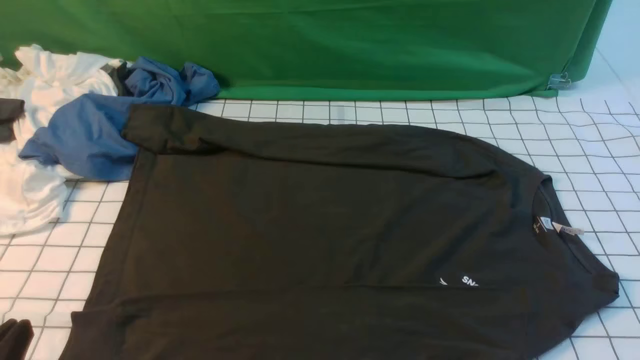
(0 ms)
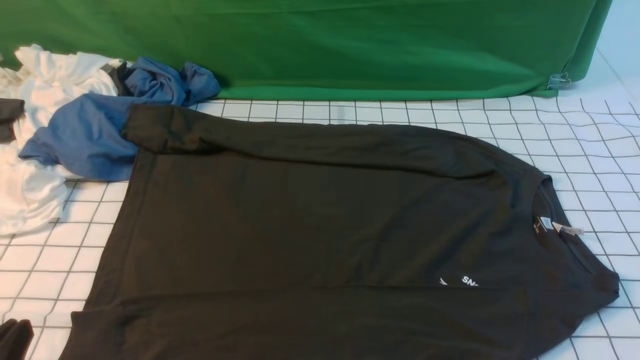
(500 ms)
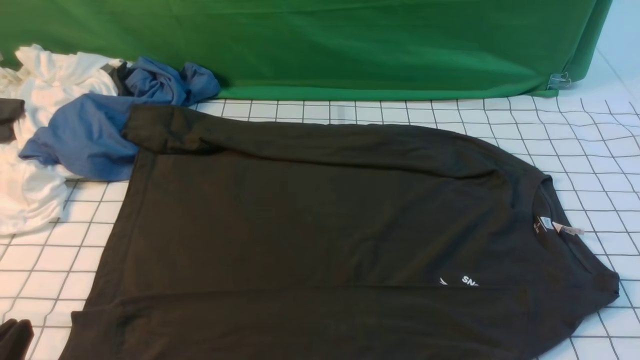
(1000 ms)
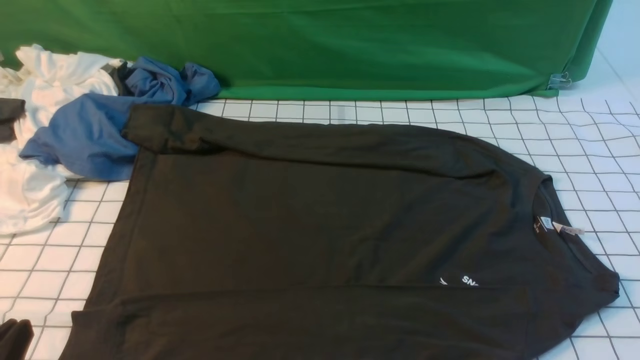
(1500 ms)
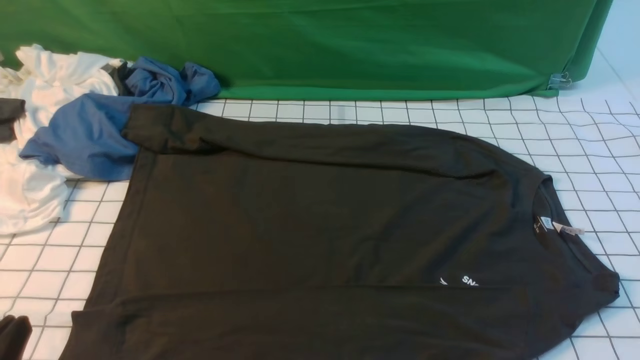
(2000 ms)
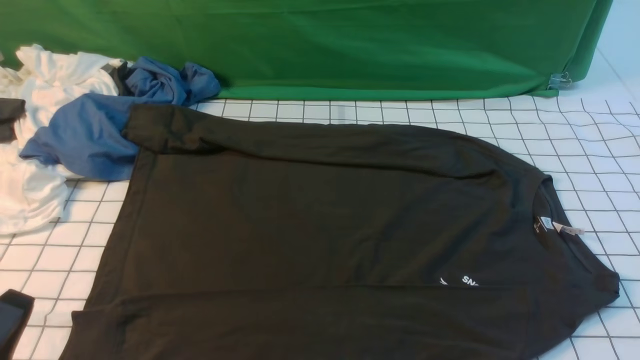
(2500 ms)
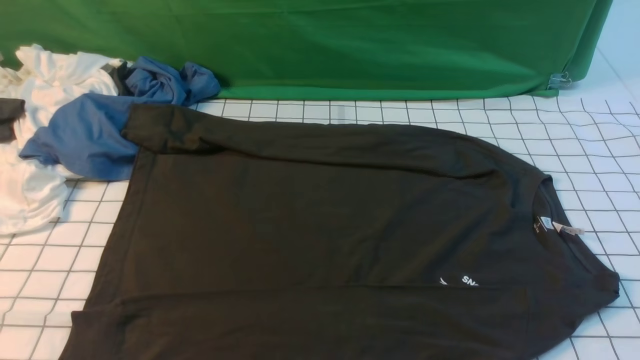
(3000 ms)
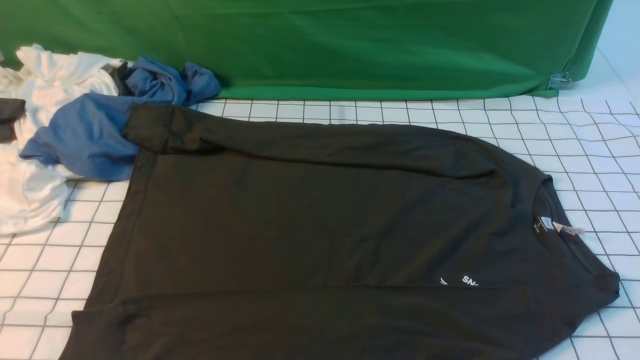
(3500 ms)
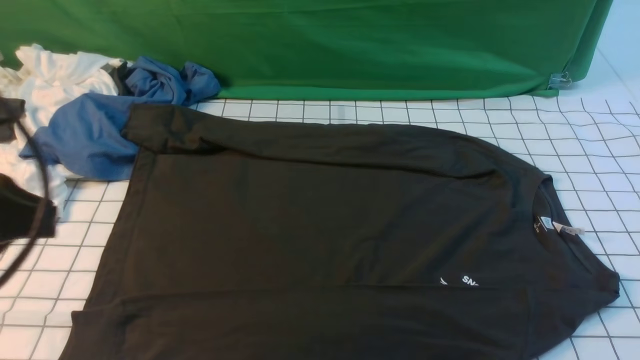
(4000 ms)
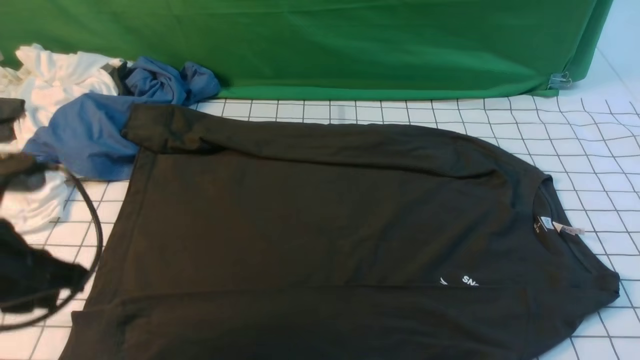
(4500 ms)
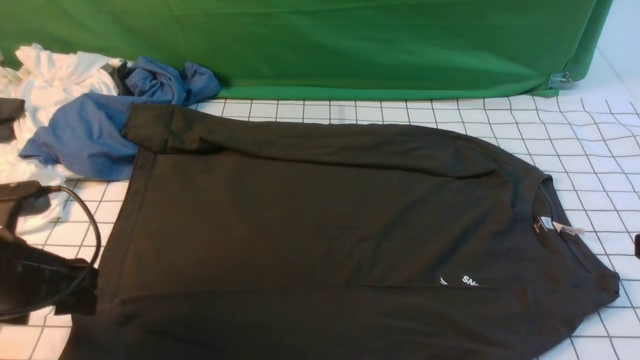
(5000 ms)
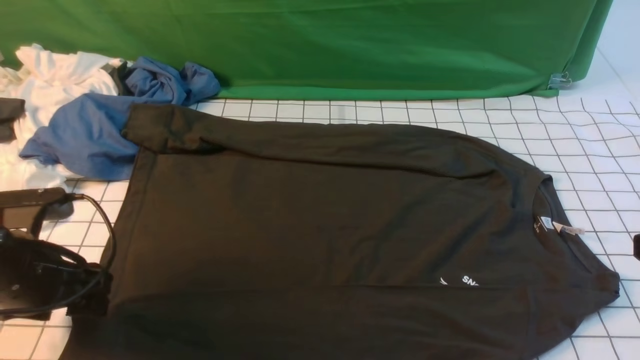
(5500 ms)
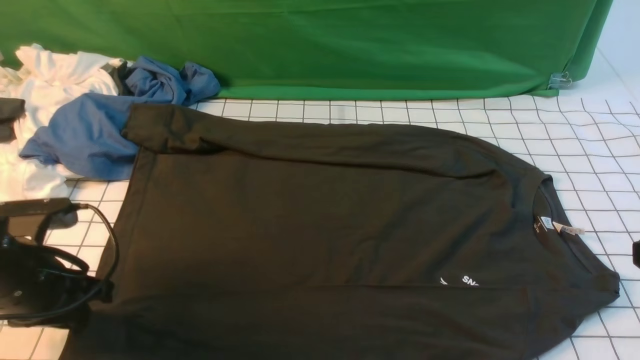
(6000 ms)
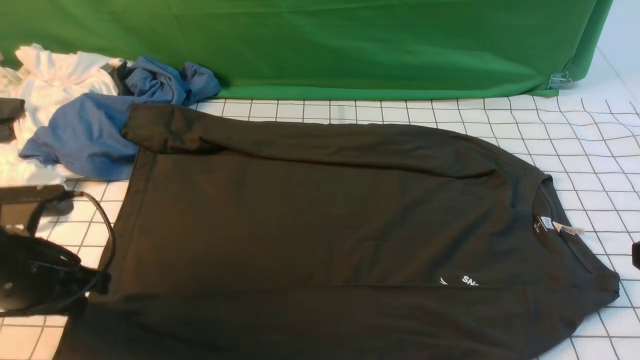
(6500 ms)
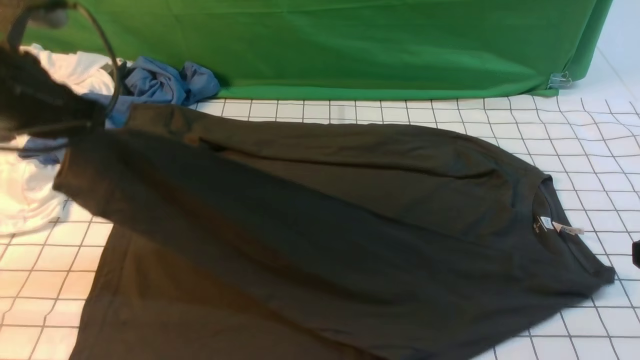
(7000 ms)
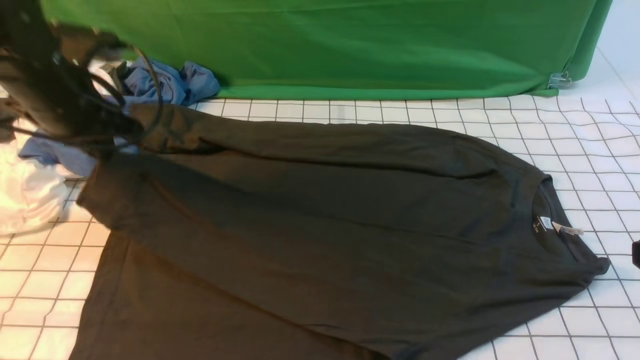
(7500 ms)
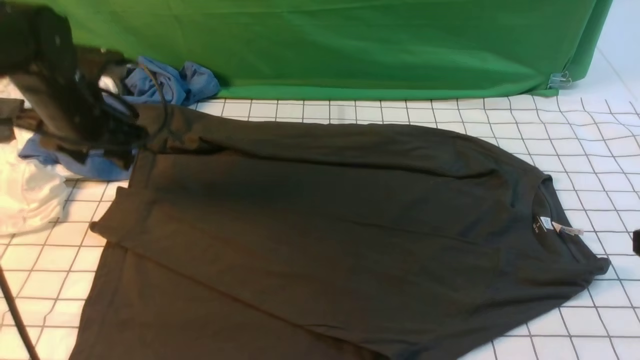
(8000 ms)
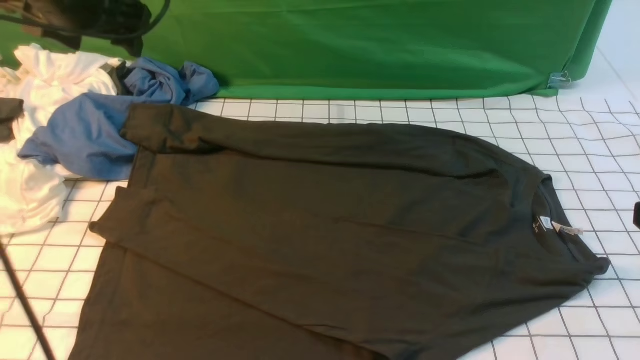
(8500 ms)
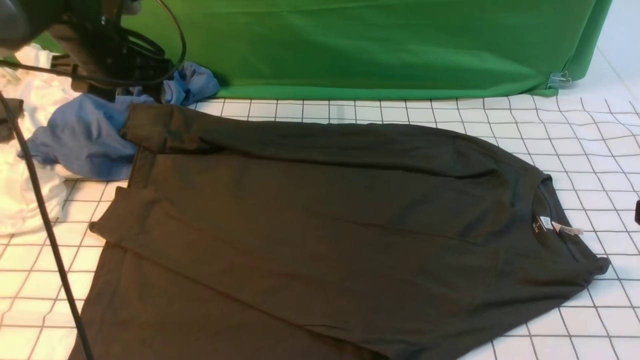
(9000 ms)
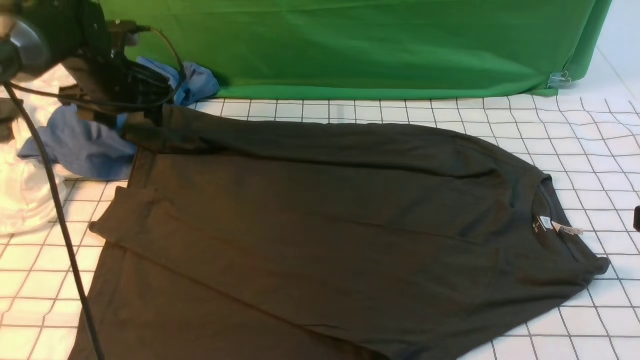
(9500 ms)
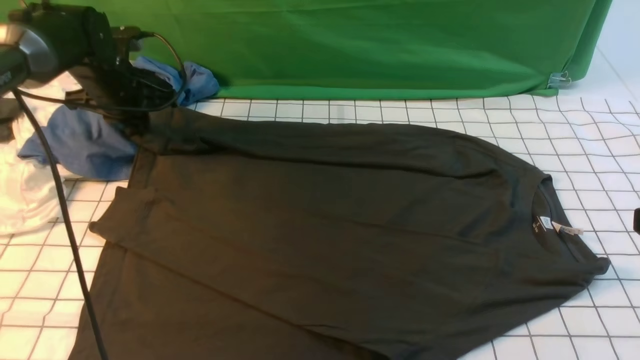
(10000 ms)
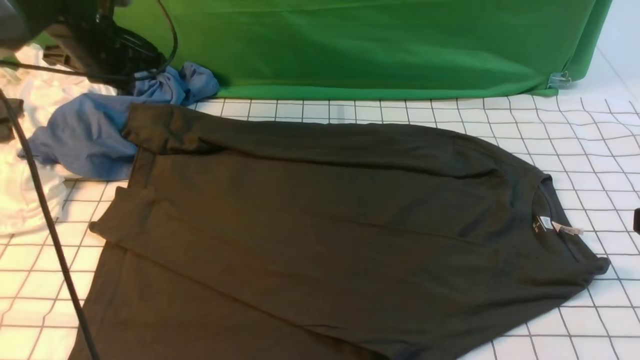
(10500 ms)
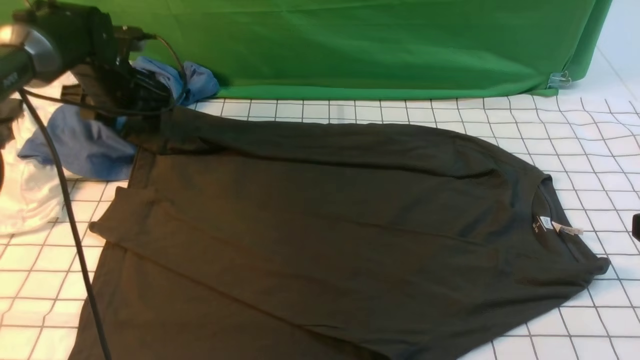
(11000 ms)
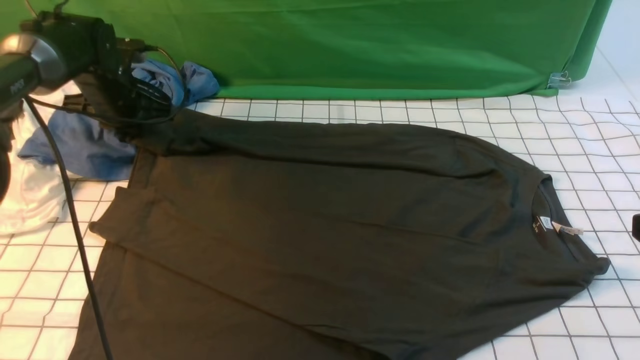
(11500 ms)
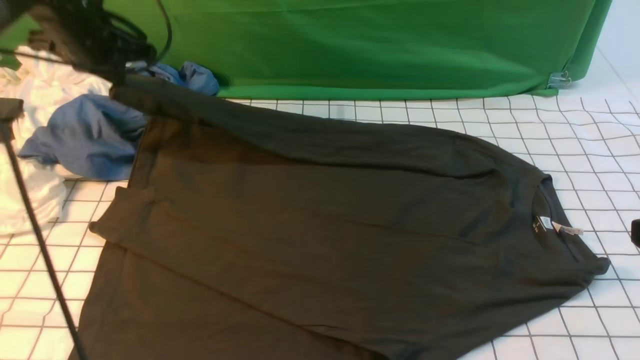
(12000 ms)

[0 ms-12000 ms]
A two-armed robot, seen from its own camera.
Step, 0 ms to 6000 ms: use the left arm to clamp the cuff closest to it.
Step, 7000 ms to 8000 ms: use the left arm to drag and place the cuff at the centered position on the left edge of the fabric.
Step, 8500 ms to 11500 ms: use the left arm to clamp the cuff farthest from it.
2000 ms to 4000 ms: The left gripper moves upward and forward, approximately 20 cm.
4000 ms to 6000 ms: The left gripper travels downward and forward by roughly 20 cm, and opens, then closes again.
6000 ms to 8000 ms: The left gripper travels forward and upward by roughly 20 cm, and opens.
8000 ms to 10000 ms: The left gripper heads forward and downward, covering roughly 10 cm, and closes.
10000 ms to 12000 ms: The left gripper shifts about 10 cm upward, and opens and closes again.

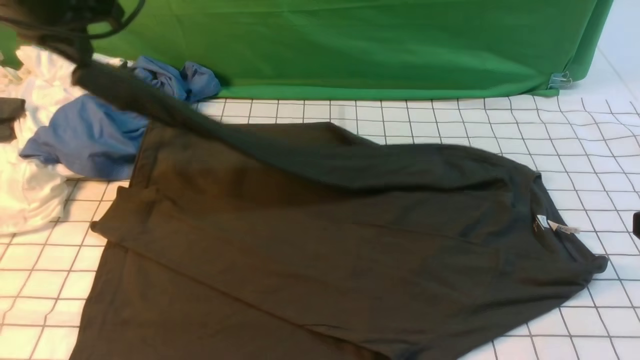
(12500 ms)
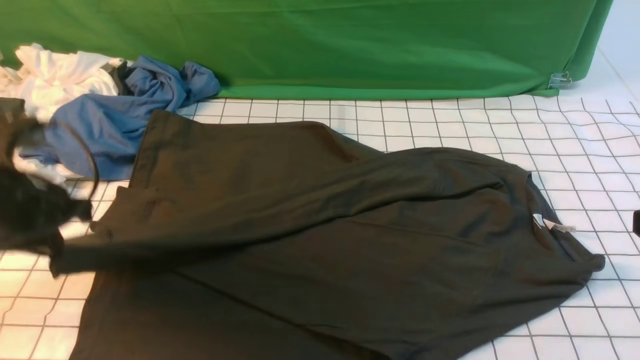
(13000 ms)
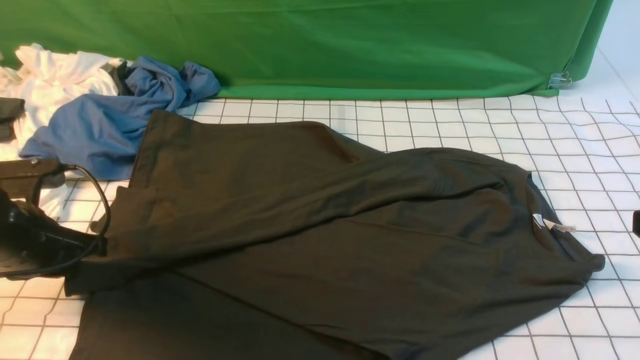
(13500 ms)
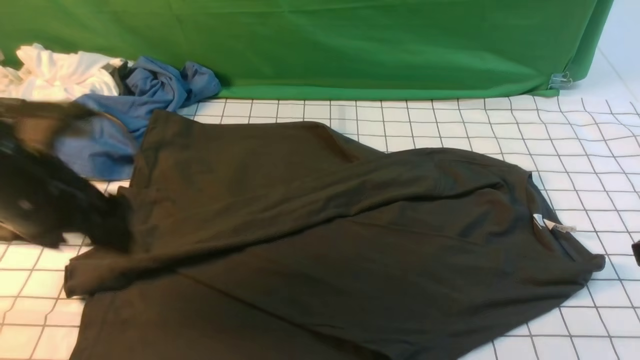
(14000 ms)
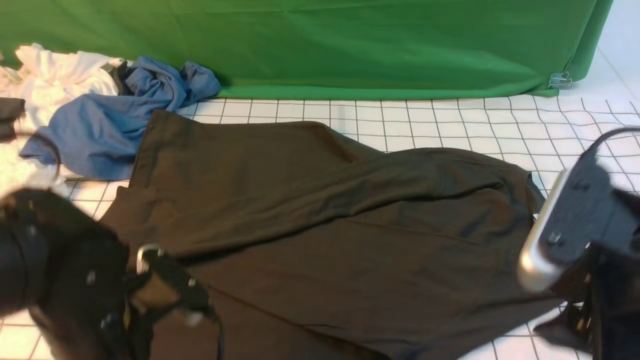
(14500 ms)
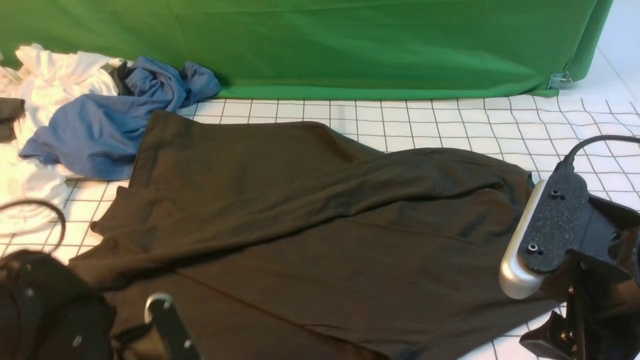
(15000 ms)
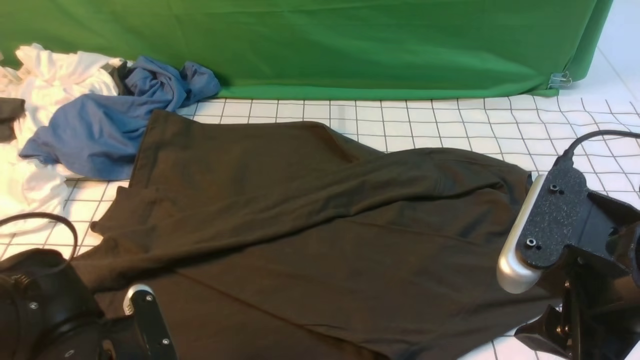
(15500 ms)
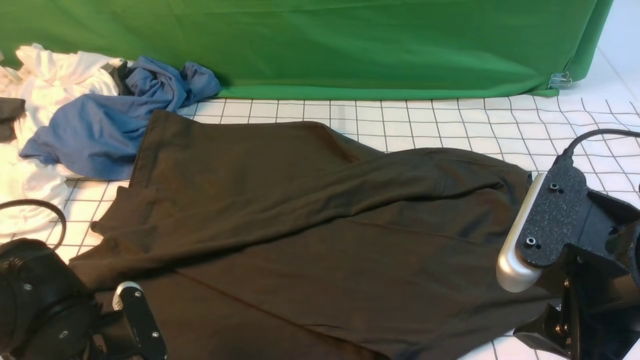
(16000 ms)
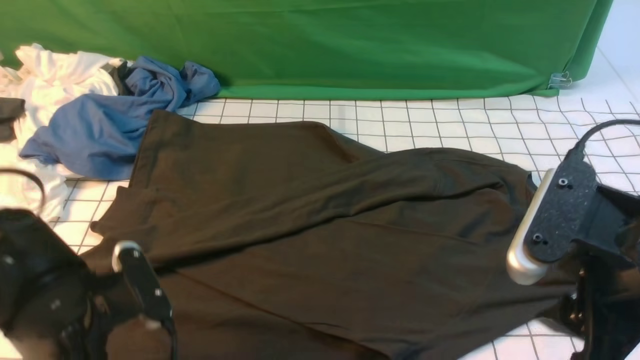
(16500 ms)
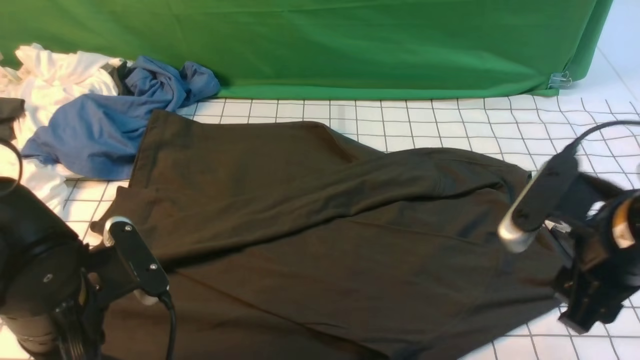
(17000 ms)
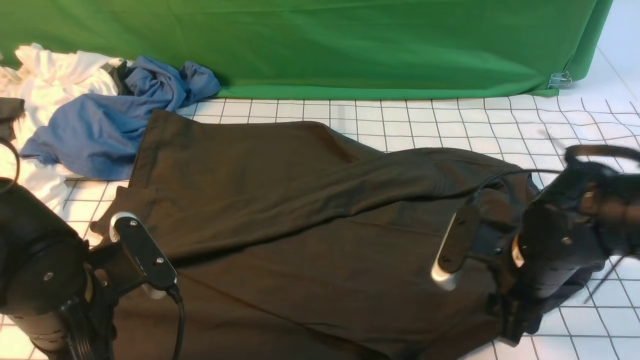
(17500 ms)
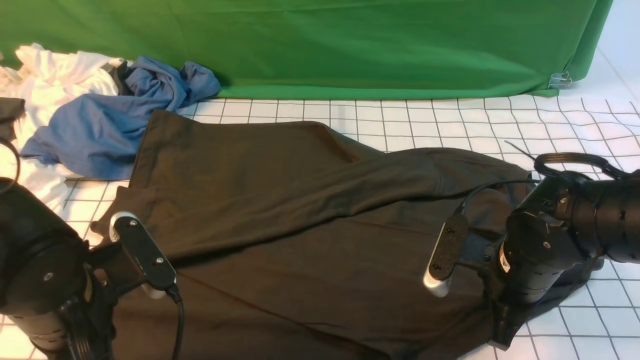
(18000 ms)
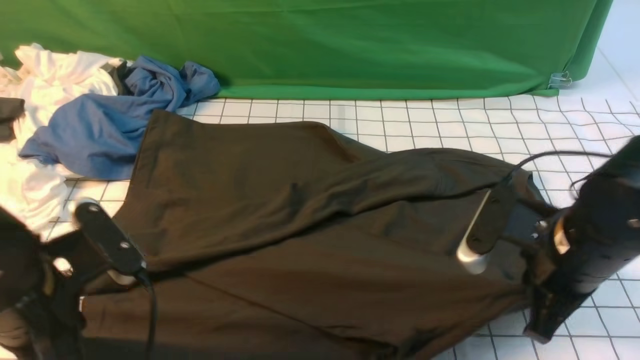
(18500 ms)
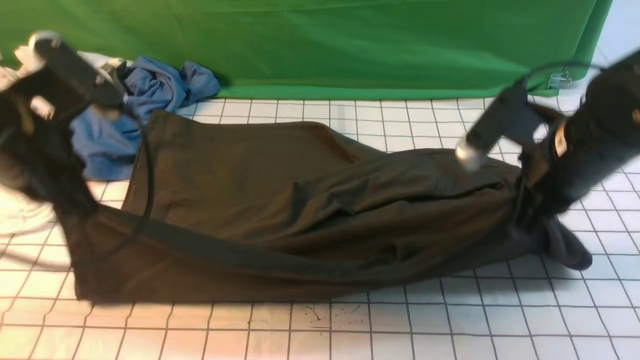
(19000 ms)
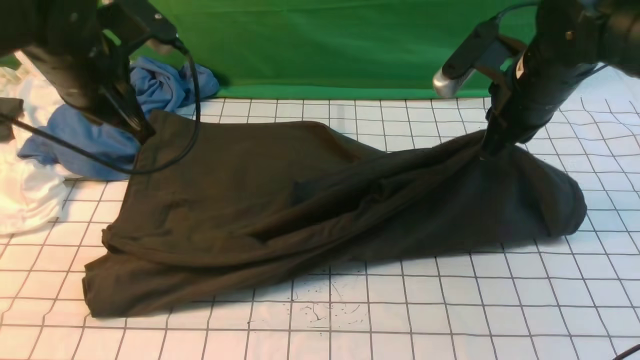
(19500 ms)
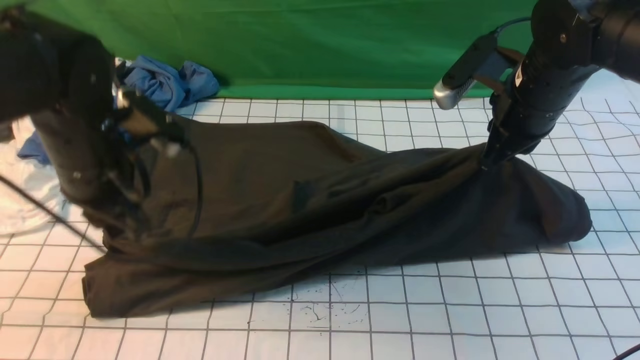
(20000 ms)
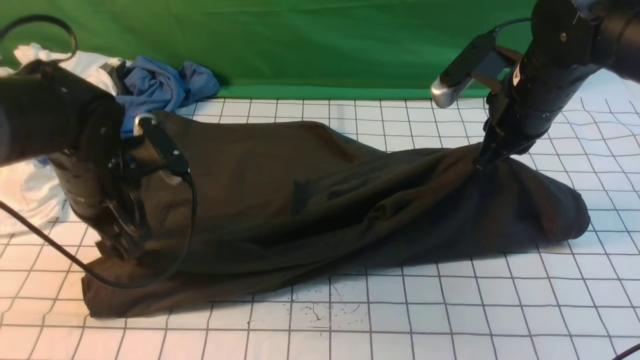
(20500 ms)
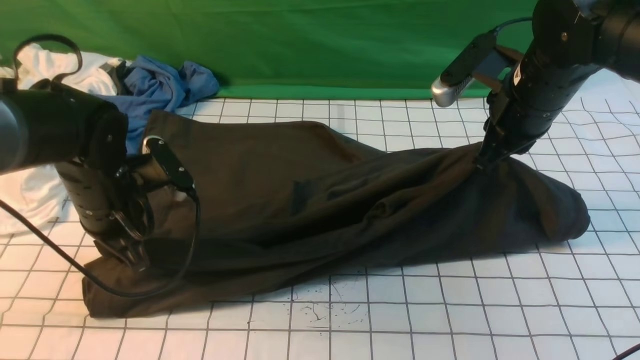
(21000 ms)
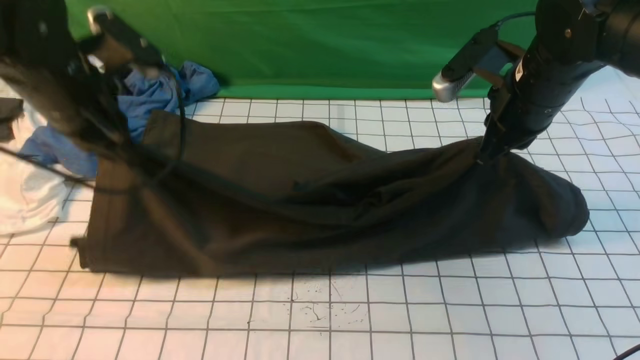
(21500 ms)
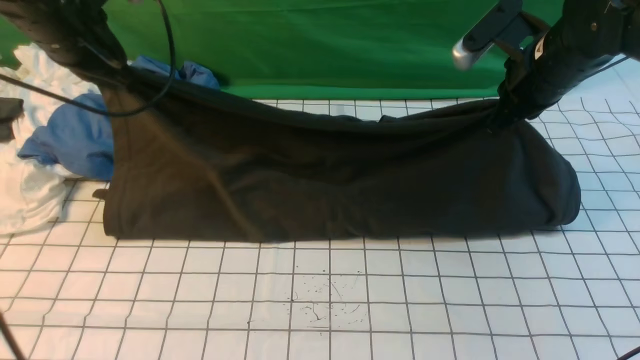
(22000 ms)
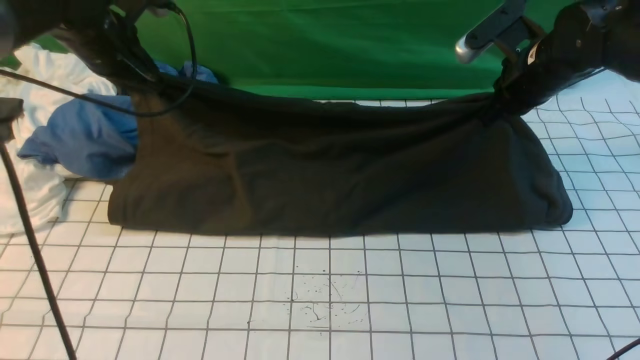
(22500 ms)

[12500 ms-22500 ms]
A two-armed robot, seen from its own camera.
Step, 12500 ms to 13500 ms: use the left arm to drag and drop the cuff onto the cuff closest to the left arm.
Step, 14000 ms to 18500 ms: use both arms simultaneously to clamp the lower edge of the clothing fabric.
12500 ms to 14500 ms: The left gripper travels backward, downward and to the right by some 30 cm, and opens. Meanwhile the right gripper goes roughly 10 cm to the left, and opens.
14500 ms to 16500 ms: The left gripper closes up.
16500 ms to 18500 ms: The left gripper travels upward by about 5 cm; the right gripper goes approximately 10 cm forward and downward, and closes.
18500 ms to 20500 ms: Both grippers travel together forward, approximately 15 cm. The left gripper opens up.
20500 ms to 22500 ms: The left gripper heads forward and upward, covering roughly 15 cm, and closes up. The right gripper moves forward, approximately 5 cm.
